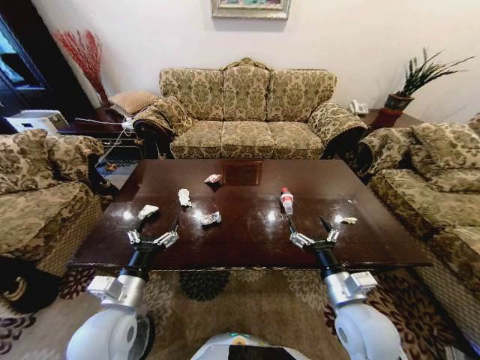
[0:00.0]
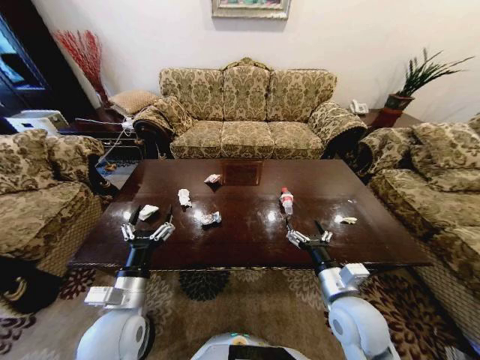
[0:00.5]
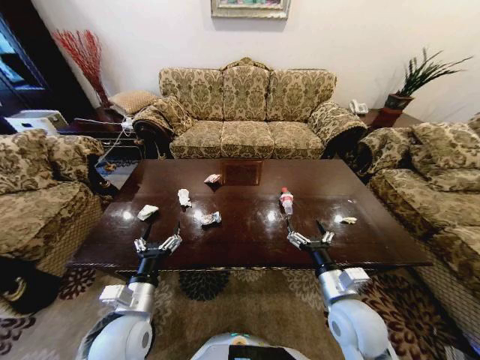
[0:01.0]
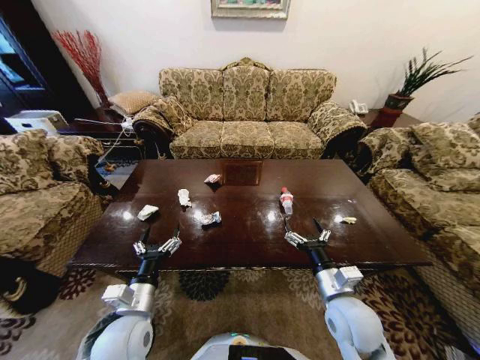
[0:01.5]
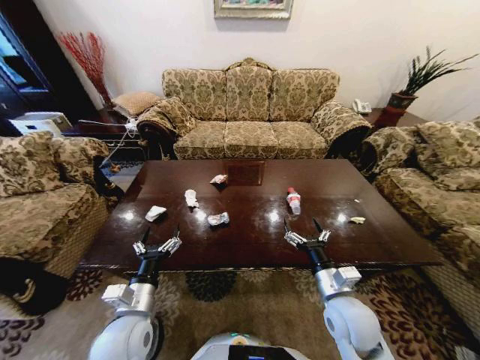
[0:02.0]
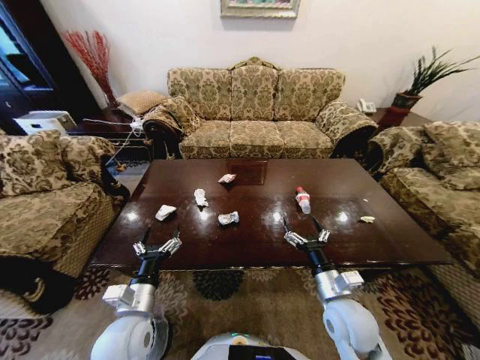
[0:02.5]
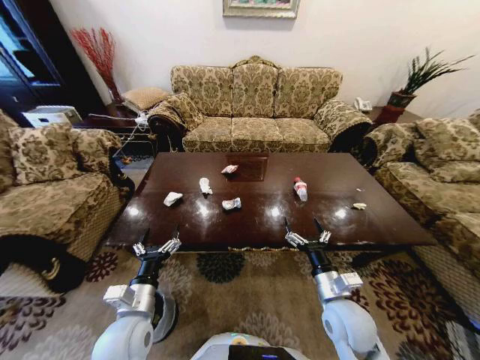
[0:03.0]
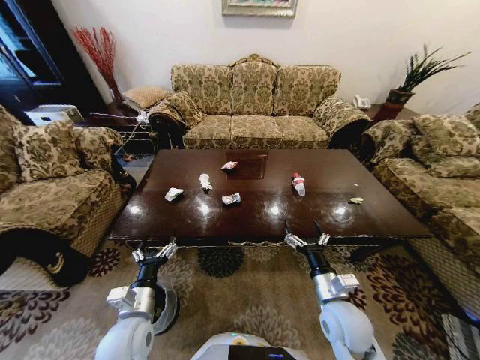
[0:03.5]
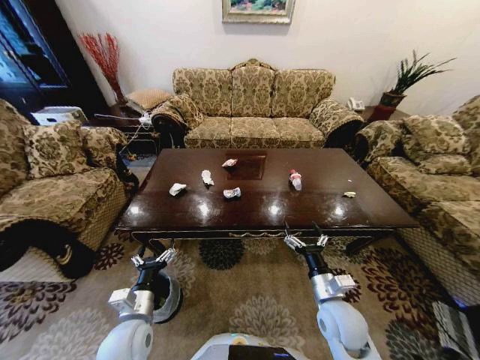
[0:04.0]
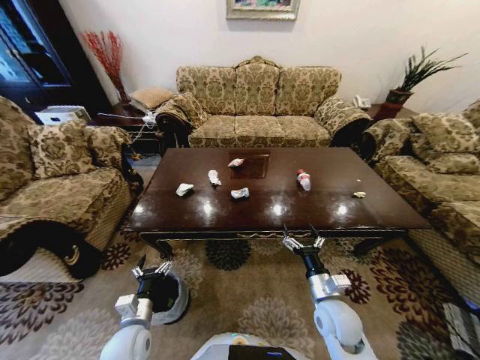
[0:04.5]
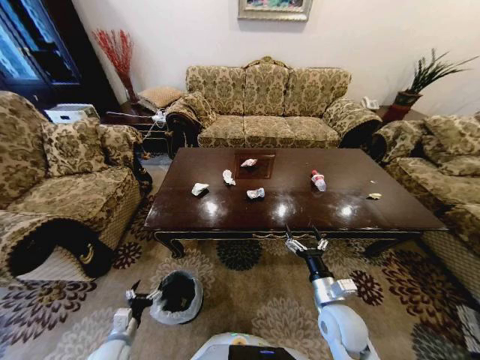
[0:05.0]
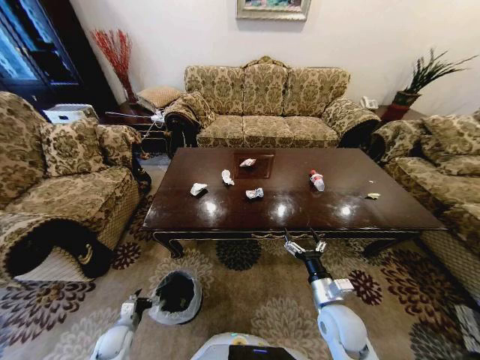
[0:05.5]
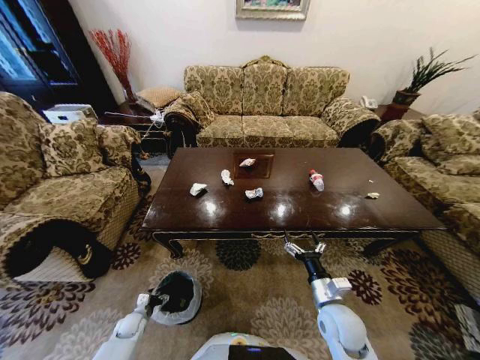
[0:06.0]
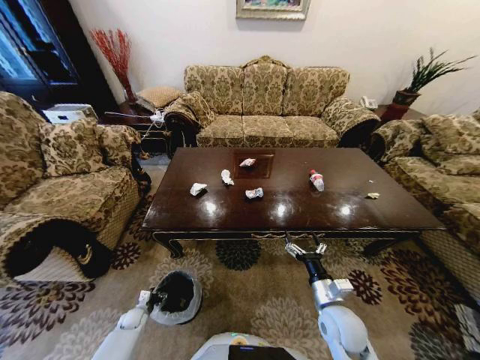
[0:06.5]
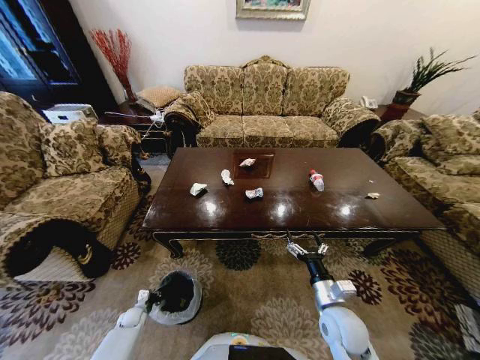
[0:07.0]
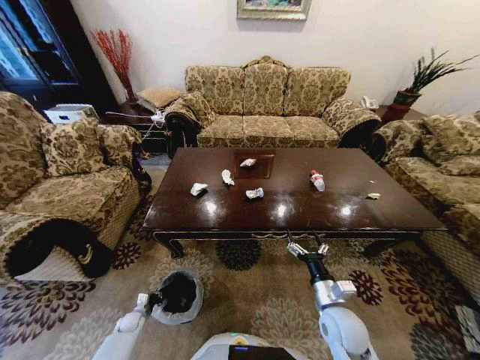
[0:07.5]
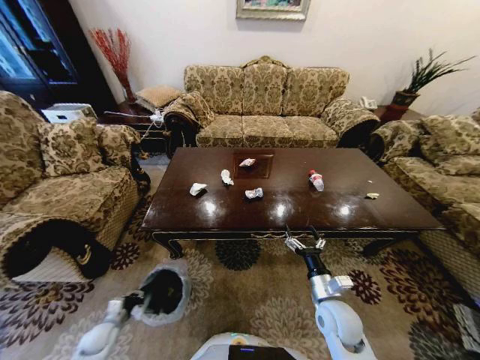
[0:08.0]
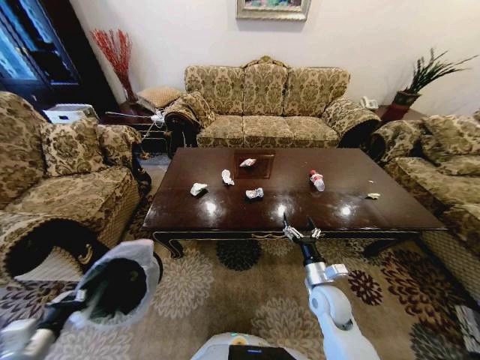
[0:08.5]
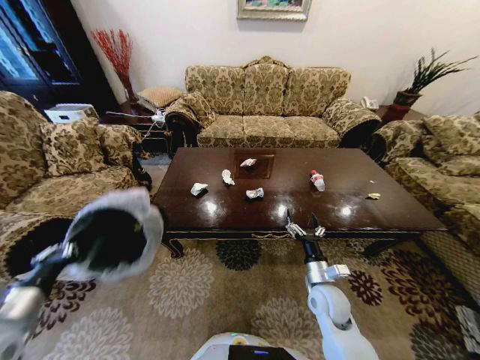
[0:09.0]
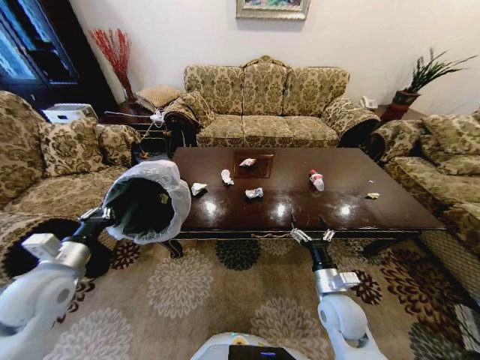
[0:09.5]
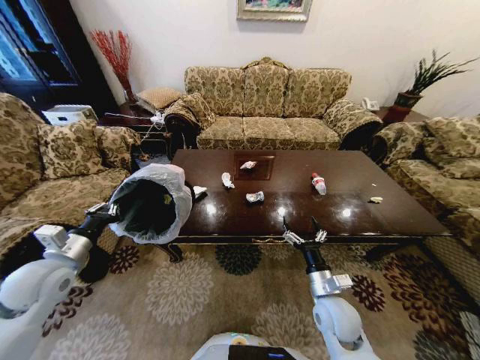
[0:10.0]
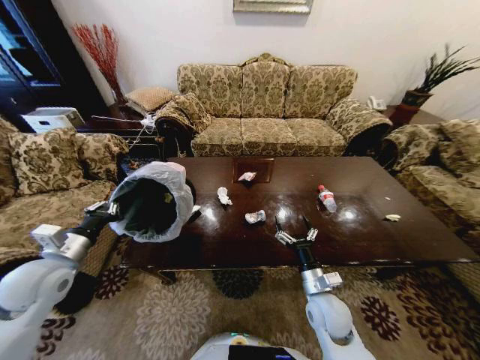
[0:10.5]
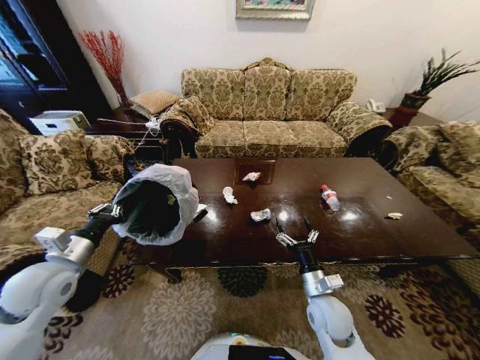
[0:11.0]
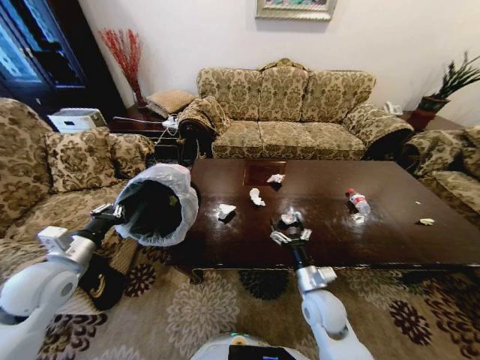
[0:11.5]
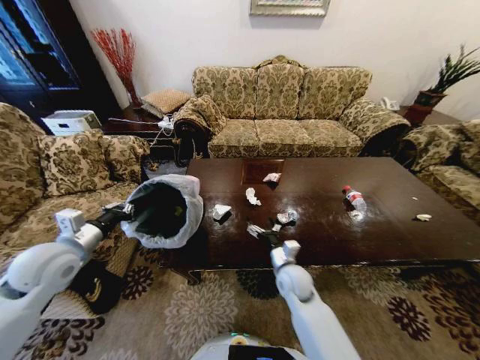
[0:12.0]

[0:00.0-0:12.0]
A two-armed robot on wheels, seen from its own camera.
Task of the whole recording: Move to the front of the table and place the trash on the table into the trash bin.
0:02.0 to 0:04.0: The left gripper ends up roughly 5 cm from where it was.
0:04.0 to 0:06.0: The left gripper goes some 30 cm downward and to the left.
0:06.0 to 0:08.0: The left gripper goes some 10 cm upward, to the left and backward, and closes up.
0:08.0 to 0:10.0: The left gripper goes approximately 30 cm upward.
0:10.0 to 0:12.0: The right gripper shifts some 15 cm forward and to the left.

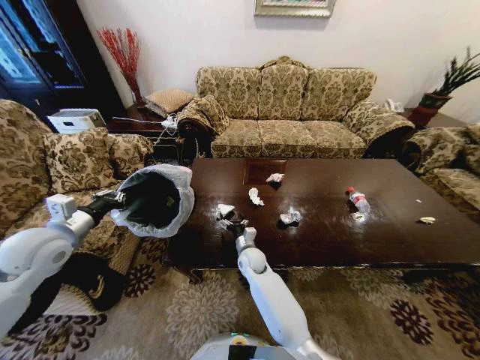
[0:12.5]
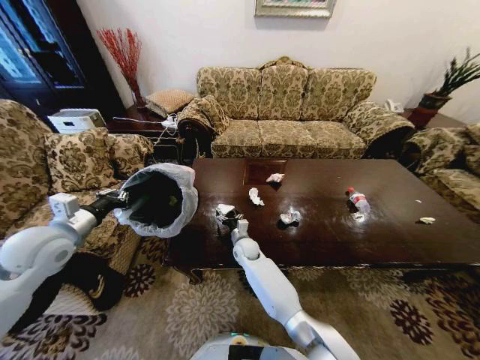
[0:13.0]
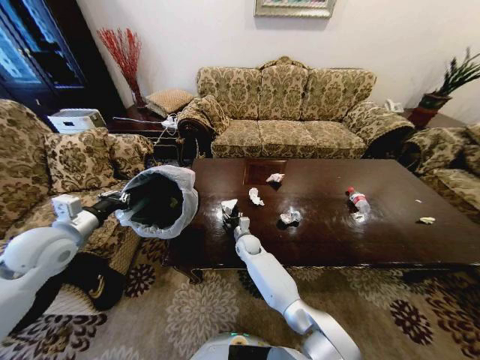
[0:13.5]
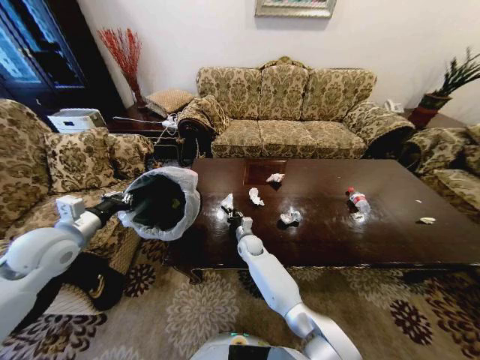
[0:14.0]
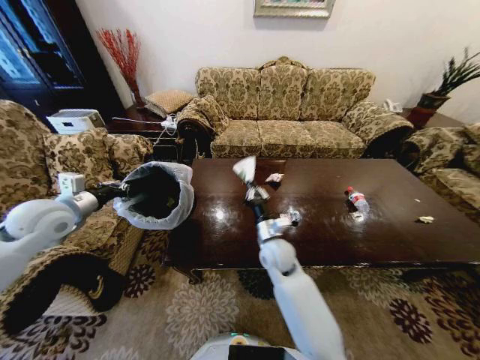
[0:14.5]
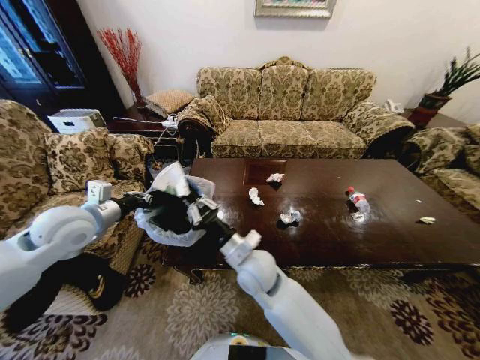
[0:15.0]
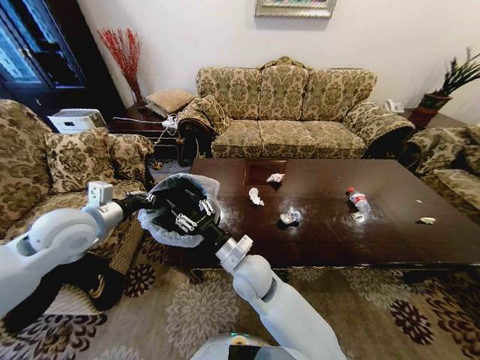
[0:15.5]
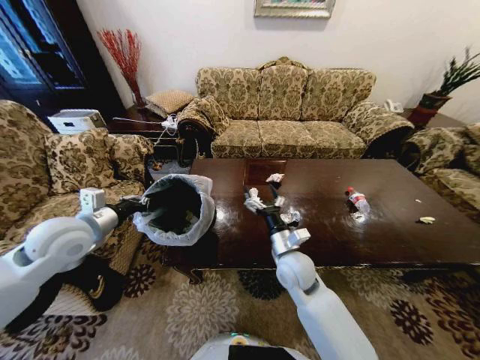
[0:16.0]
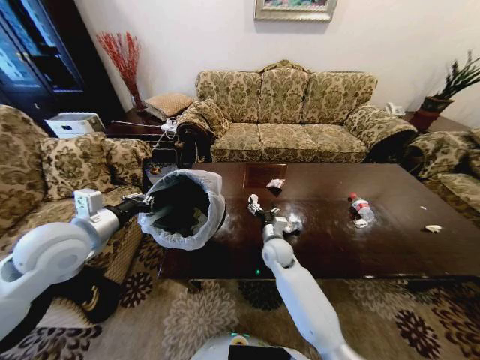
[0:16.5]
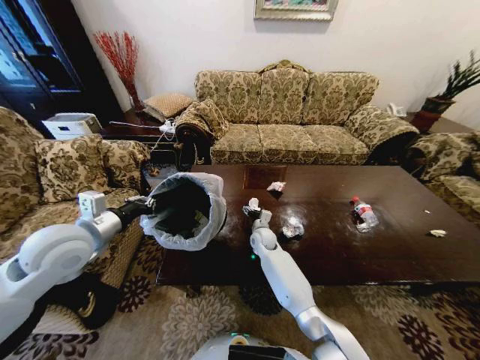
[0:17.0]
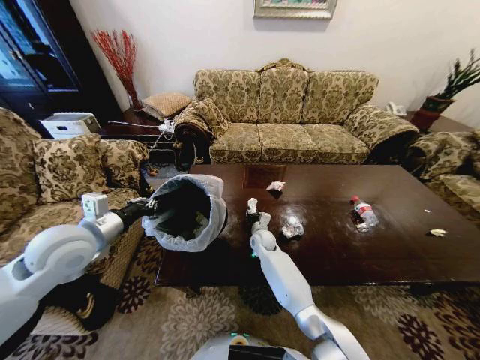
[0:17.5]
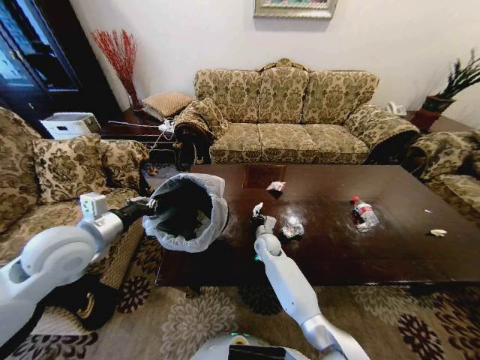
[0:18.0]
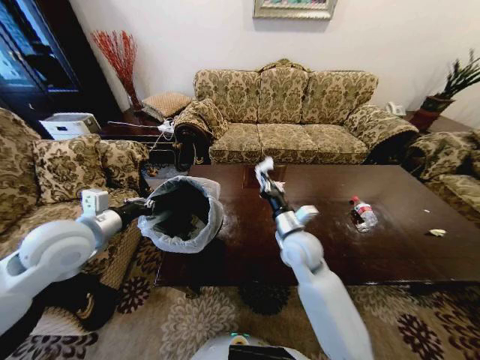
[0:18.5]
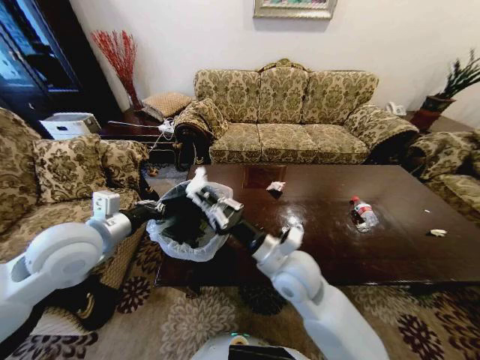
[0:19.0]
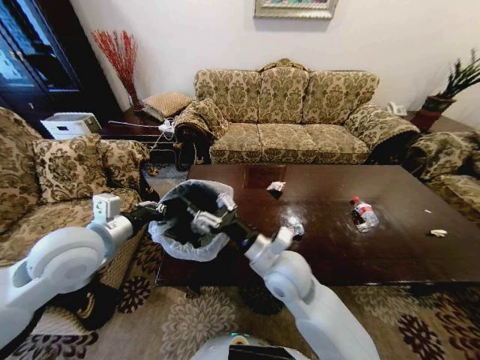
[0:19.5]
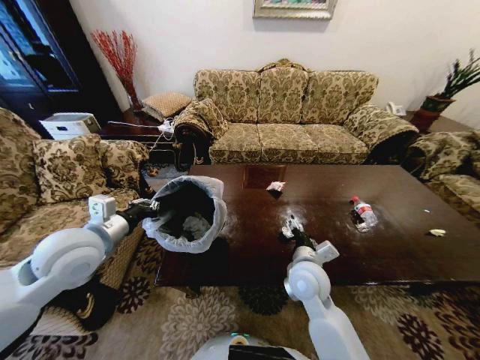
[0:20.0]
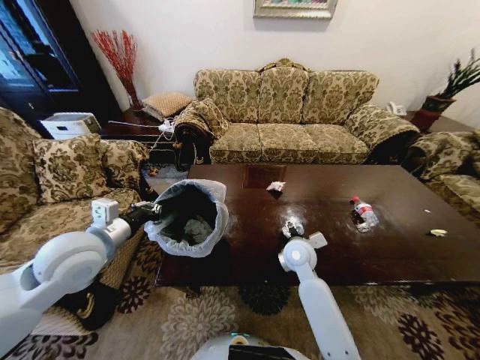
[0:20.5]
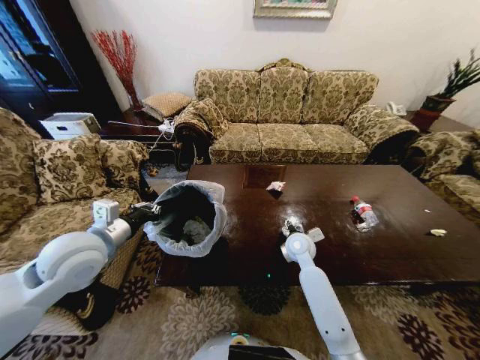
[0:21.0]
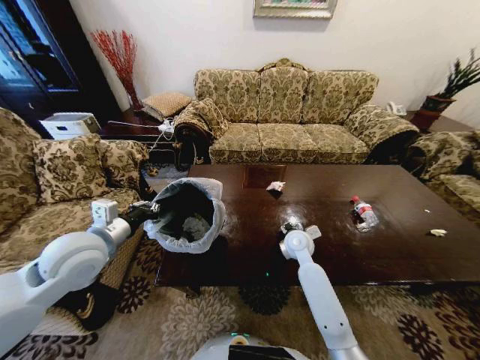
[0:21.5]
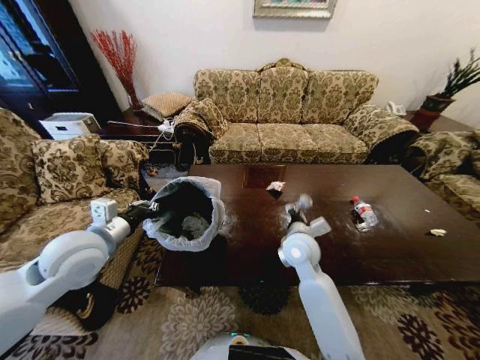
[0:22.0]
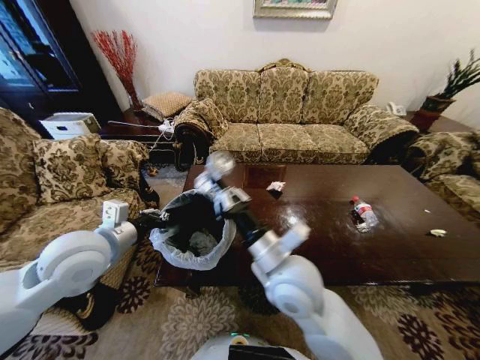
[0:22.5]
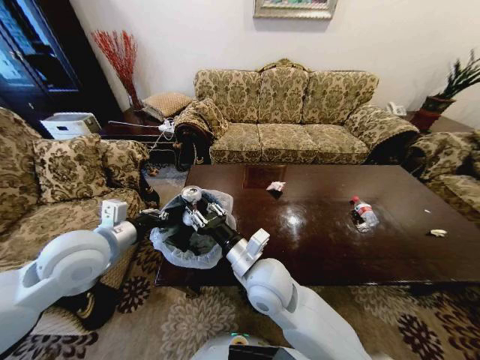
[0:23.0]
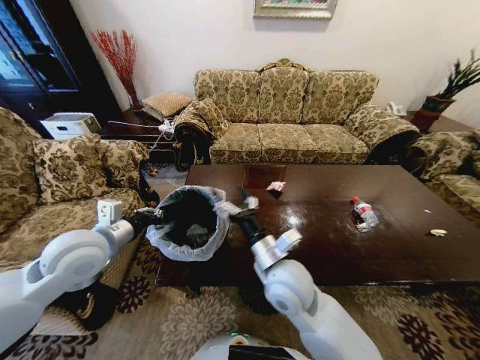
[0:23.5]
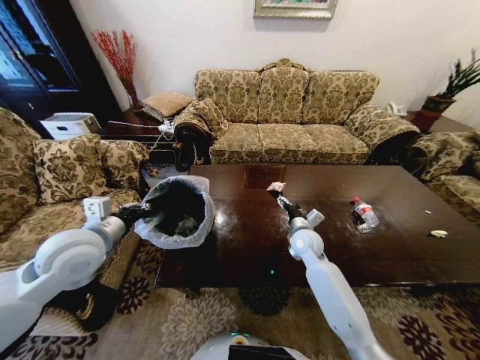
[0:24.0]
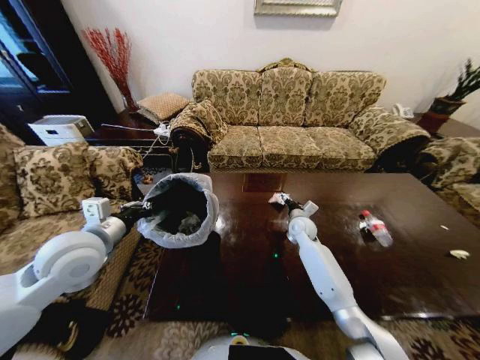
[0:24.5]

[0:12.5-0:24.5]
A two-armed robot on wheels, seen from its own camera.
Task of the whole recording: Move to the front of the table and place the trash on the table into the trash bin.
0:12.5 to 0:14.5: The right gripper heads upward and to the right, covering about 15 cm, and closes. Meanwhile the left gripper shifts some 5 cm forward.
0:14.5 to 0:16.5: The right gripper is displaced downward by some 5 cm, moves approximately 10 cm to the left and comes back, and opens, while the left gripper is displaced to the right and backward by approximately 10 cm.
0:16.5 to 0:18.5: The right gripper shifts some 10 cm upward, and closes its fingers.
0:18.5 to 0:20.5: The right gripper shifts some 5 cm downward, and opens its fingers.
0:20.5 to 0:22.5: The right gripper moves upward, backward and to the left, some 20 cm, and closes its fingers.
0:22.5 to 0:24.5: The right gripper heads forward, downward and to the right, covering about 35 cm, and opens.

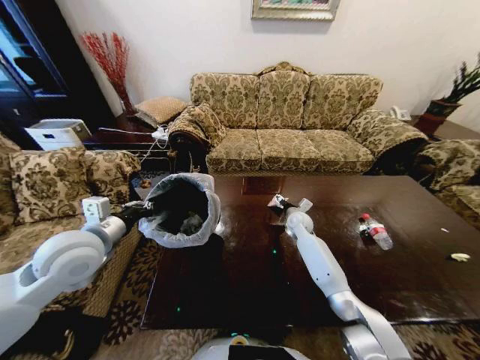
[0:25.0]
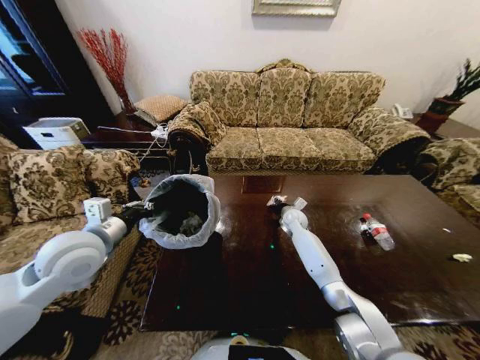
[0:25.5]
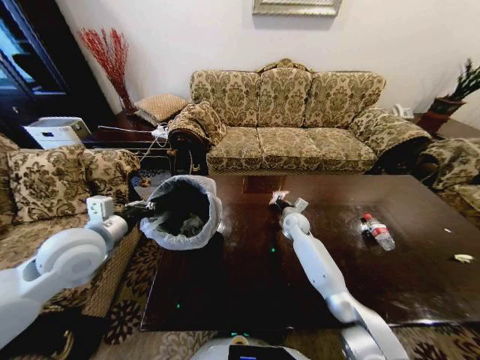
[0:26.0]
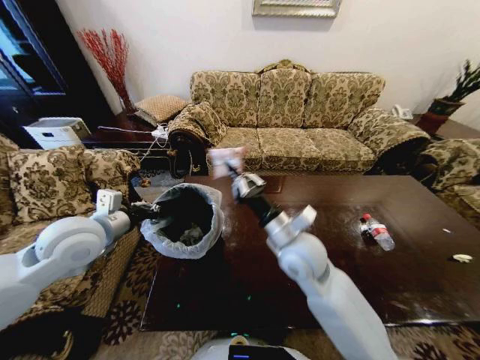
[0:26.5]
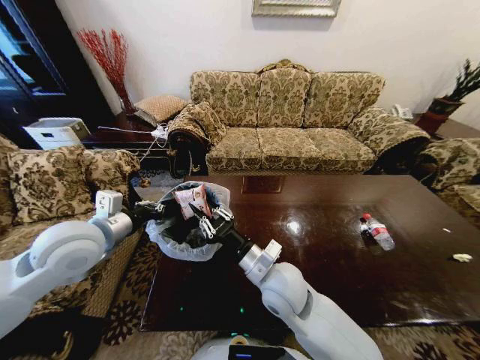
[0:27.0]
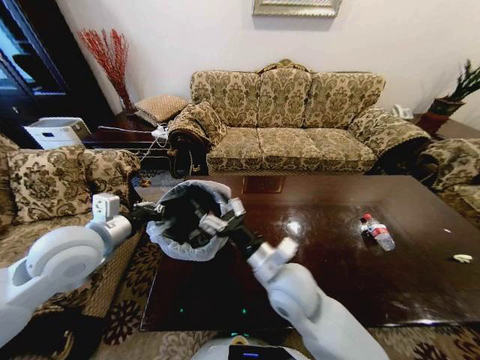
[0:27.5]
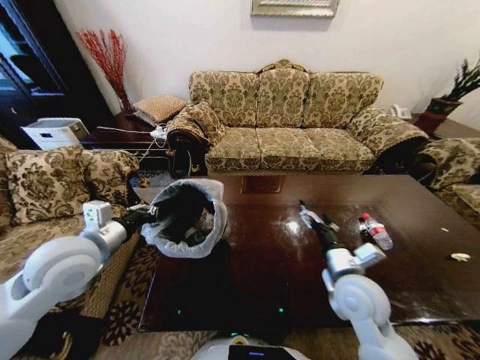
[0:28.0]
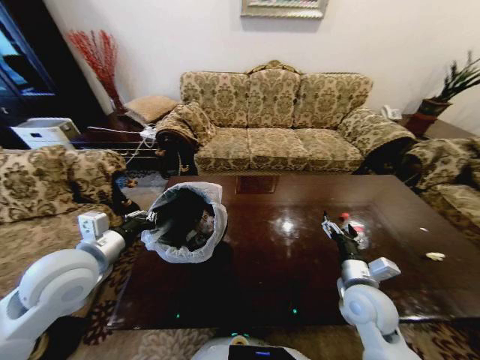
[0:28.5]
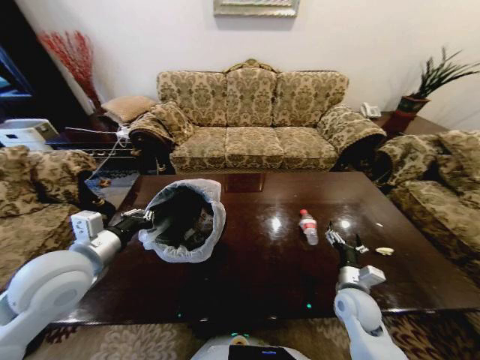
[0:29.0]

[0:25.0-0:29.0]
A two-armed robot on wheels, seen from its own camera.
Task of the whole recording: Move to the front of the table and place the trash on the table into the trash bin.
0:25.0 to 0:27.0: The right gripper goes some 35 cm backward, to the left and upward, and closes.
0:27.0 to 0:29.0: The right gripper moves to the right and downward, approximately 25 cm, and opens up. Meanwhile the left gripper ends up some 5 cm from where it was.
